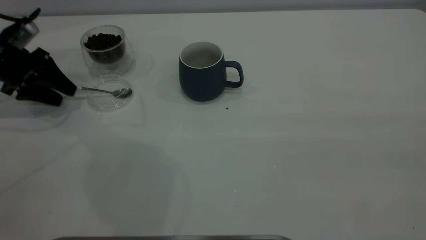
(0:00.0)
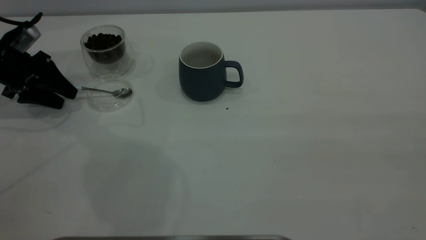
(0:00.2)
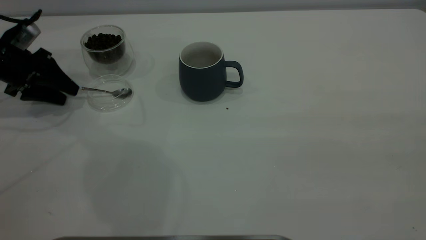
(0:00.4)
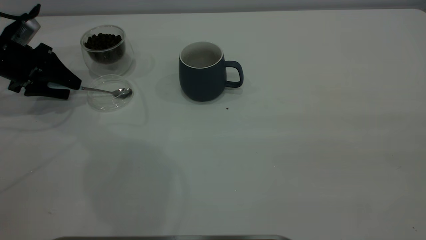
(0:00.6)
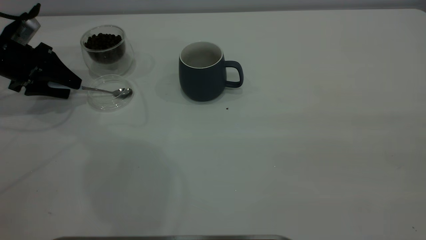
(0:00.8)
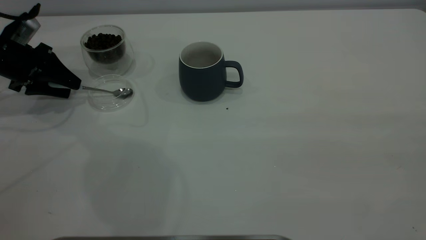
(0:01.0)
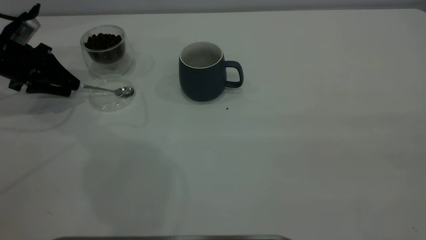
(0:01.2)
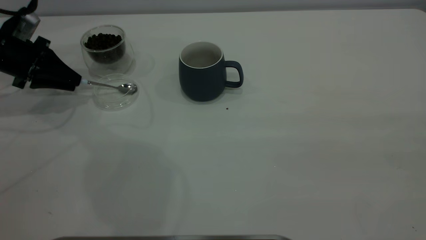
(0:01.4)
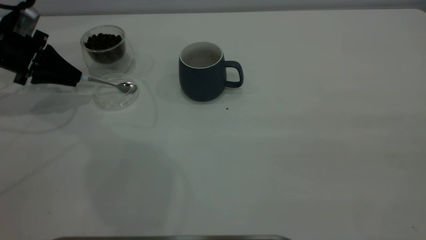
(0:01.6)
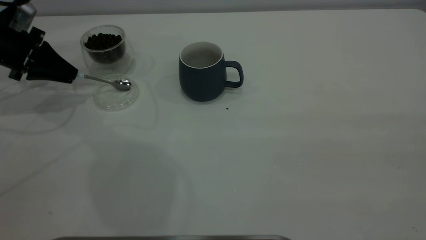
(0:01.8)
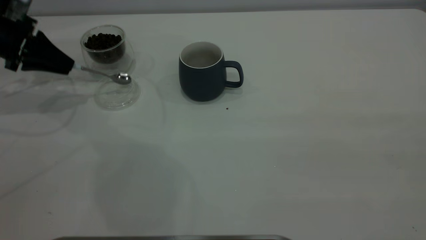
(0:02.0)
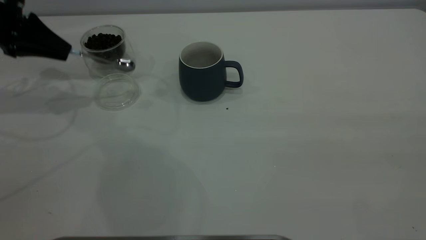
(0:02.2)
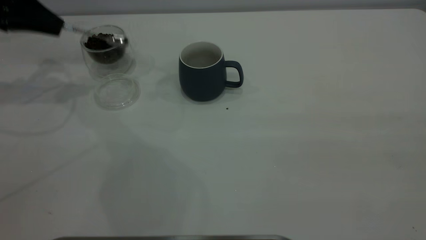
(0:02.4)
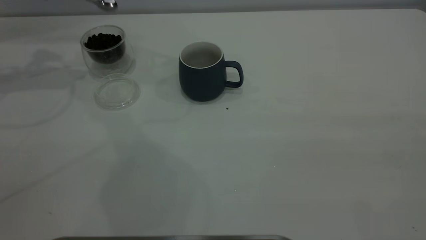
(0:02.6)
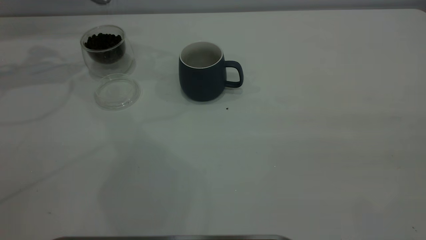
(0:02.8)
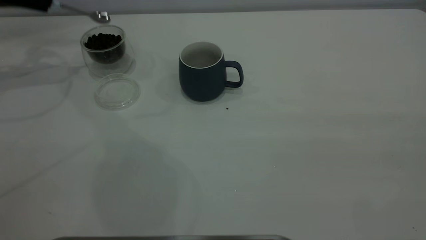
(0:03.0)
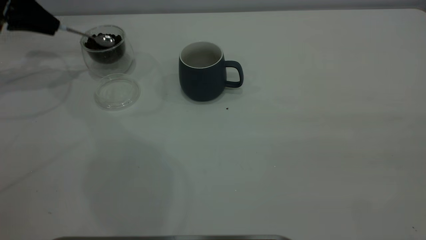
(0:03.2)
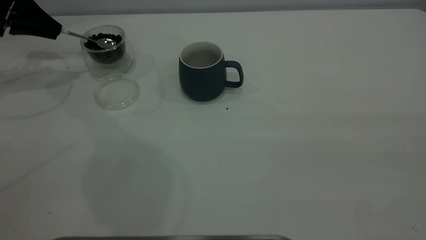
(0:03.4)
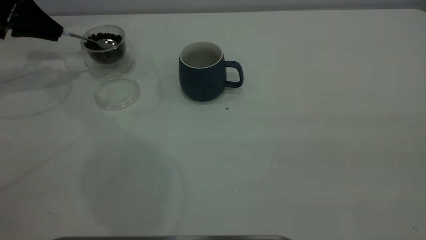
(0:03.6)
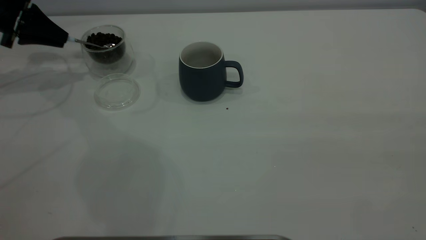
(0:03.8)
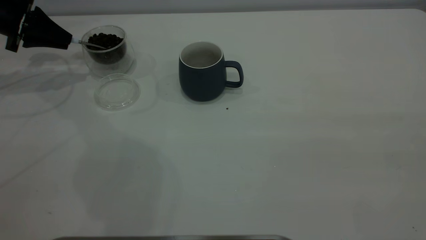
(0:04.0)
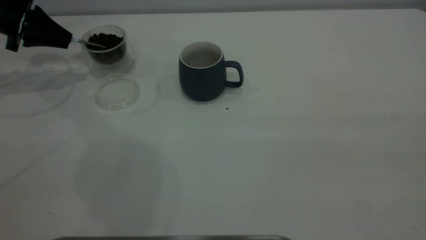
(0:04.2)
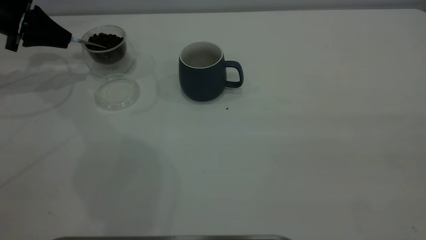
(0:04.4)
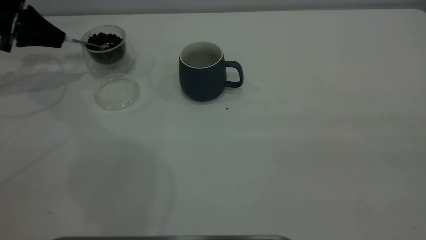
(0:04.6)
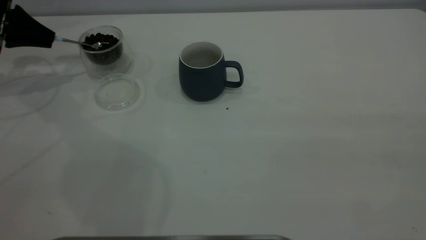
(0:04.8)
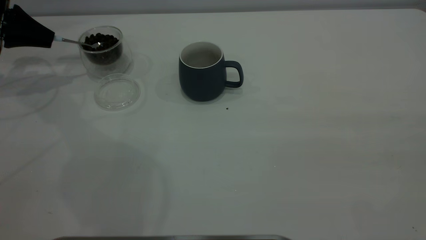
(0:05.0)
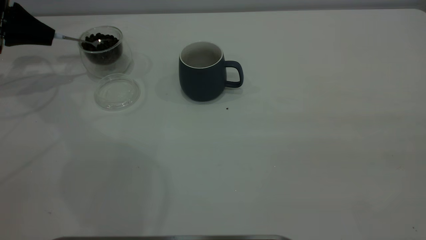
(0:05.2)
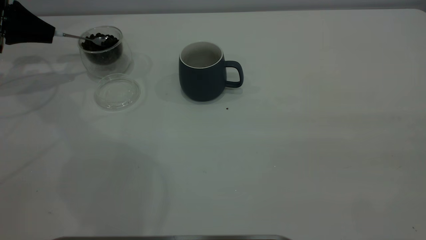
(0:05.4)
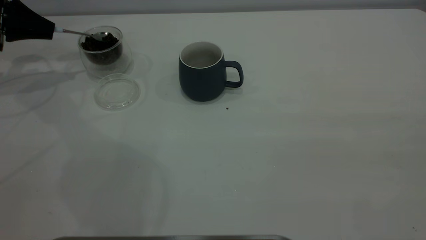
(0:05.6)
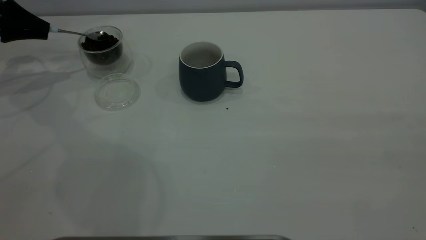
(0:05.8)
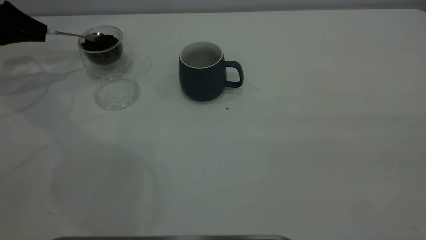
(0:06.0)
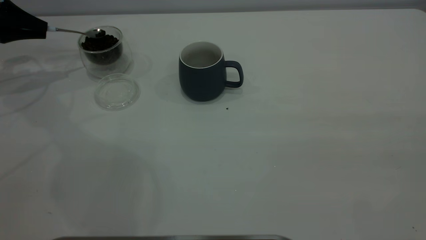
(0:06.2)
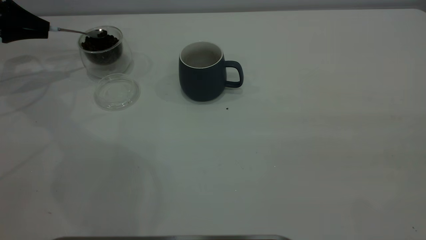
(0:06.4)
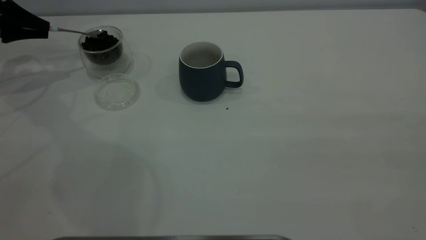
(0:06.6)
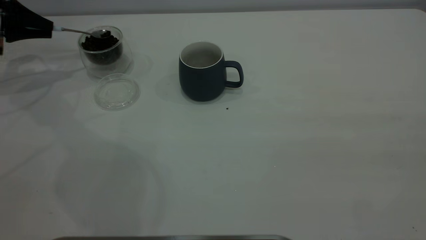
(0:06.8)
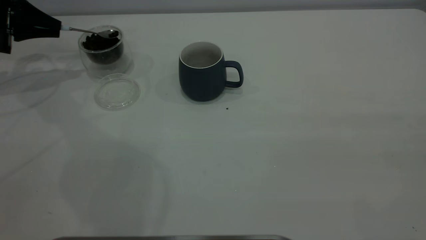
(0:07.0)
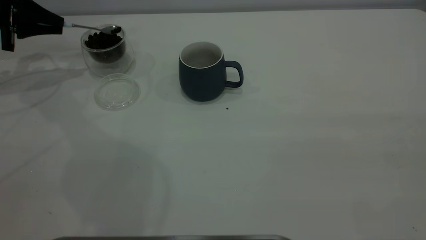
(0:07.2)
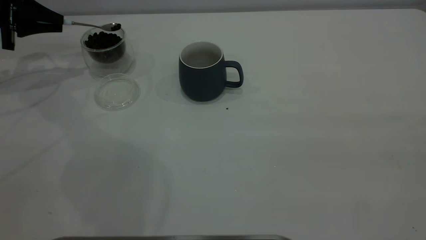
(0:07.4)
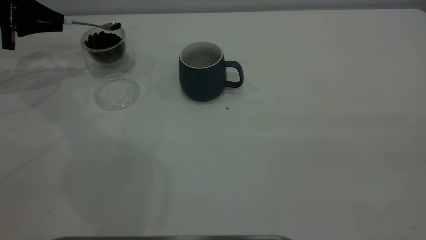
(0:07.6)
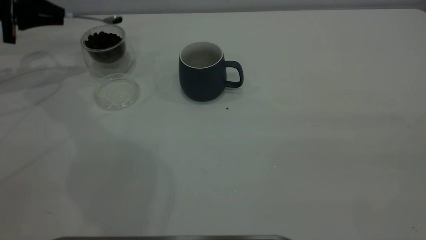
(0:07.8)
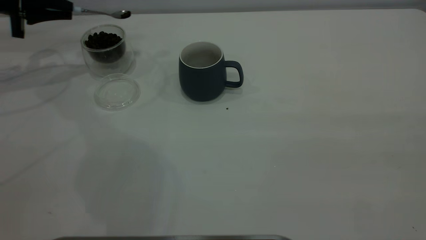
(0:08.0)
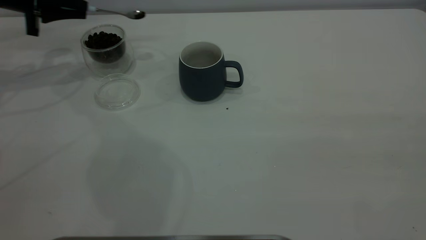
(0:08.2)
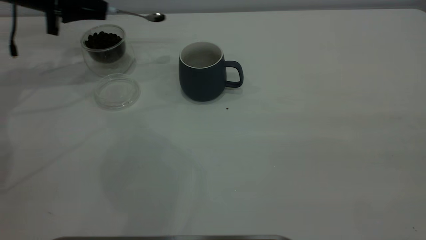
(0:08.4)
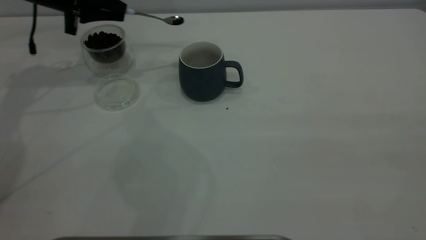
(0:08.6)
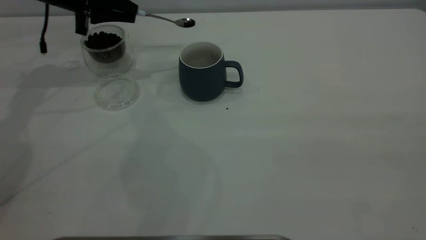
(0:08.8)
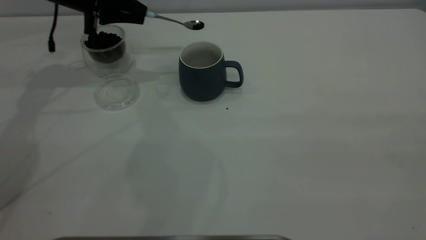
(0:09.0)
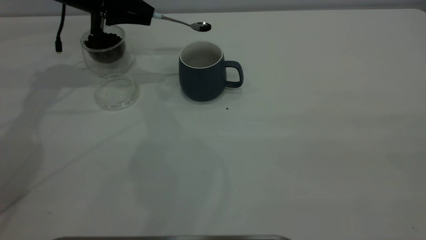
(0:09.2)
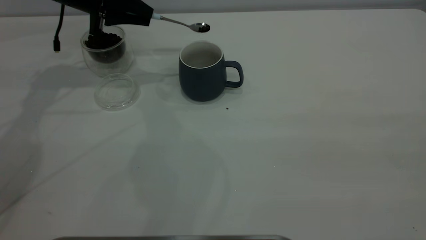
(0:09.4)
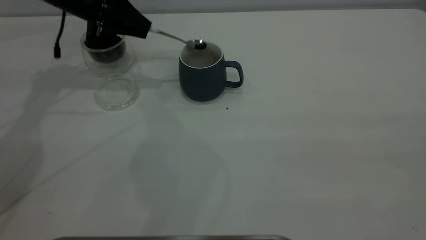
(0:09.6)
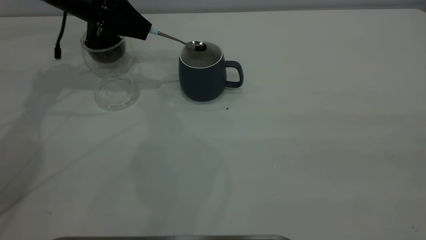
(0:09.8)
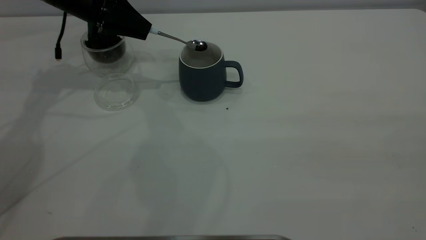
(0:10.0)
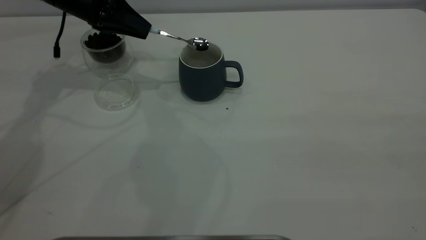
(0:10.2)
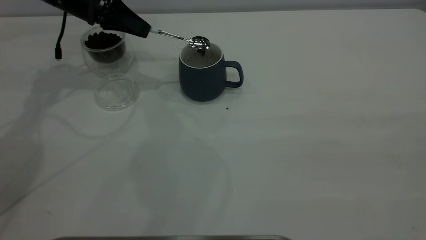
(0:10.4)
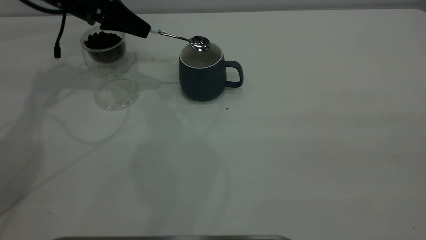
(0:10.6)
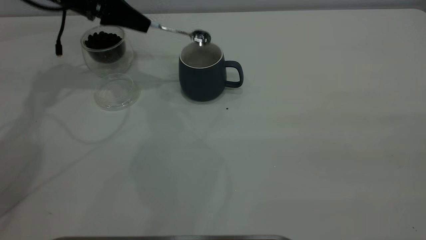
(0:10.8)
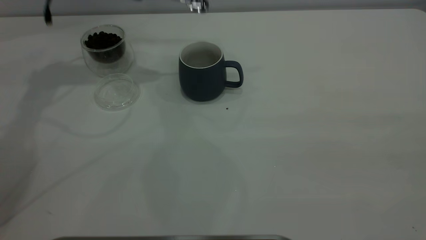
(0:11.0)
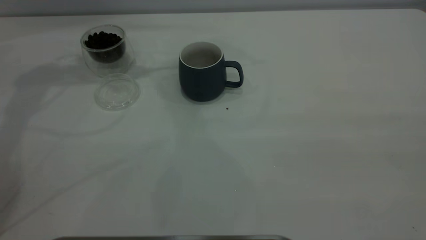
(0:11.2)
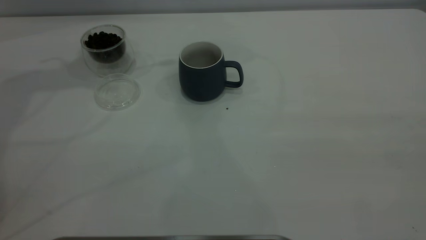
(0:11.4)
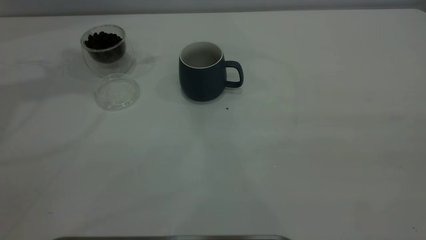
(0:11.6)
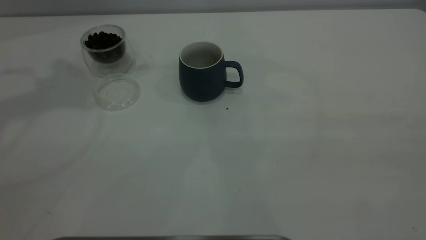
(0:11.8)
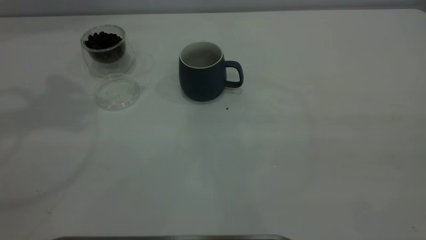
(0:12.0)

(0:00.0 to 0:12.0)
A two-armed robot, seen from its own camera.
Task of the whole recording: the right gripper place the grey cup in the center of the table, the left gripper take the blue spoon from the cup lid and scoop out the coffee beans from the coffee cup and put them into the grey cup, the left gripper put the spoon back into the cup lid.
Step, 0:00.0 - 0:02.0: Pick up the spoon.
Step, 0:02.2 - 0:10.6: Scoop a spoonful of beans into the cup.
0:00.0 - 0:01.6: The left gripper closes up.
0:01.6 - 0:03.0: The left gripper is displaced upward and forward by about 10 cm.
0:03.0 - 0:04.4: The left gripper goes approximately 5 cm downward.
0:04.4 - 0:07.6: The grippers move only a little.
0:07.6 - 0:09.0: The left gripper is displaced to the right by about 15 cm.
0:10.4 - 0:12.0: The left gripper heads upward and backward, covering about 30 cm.

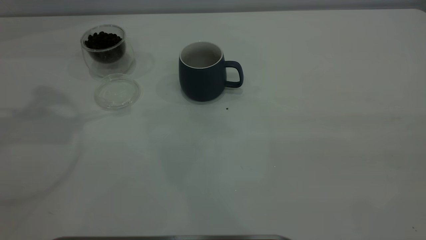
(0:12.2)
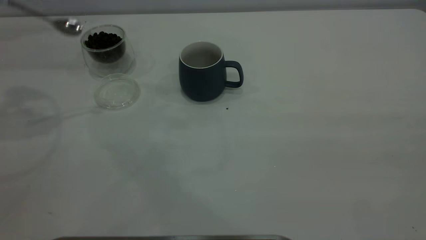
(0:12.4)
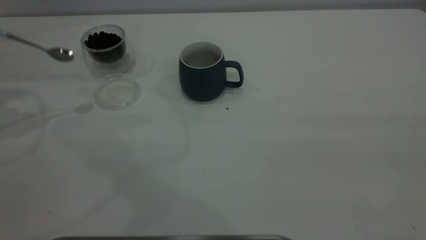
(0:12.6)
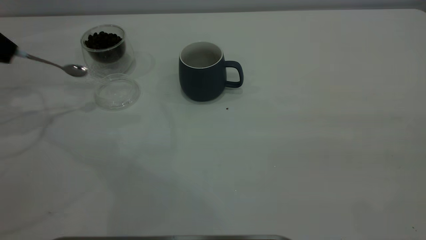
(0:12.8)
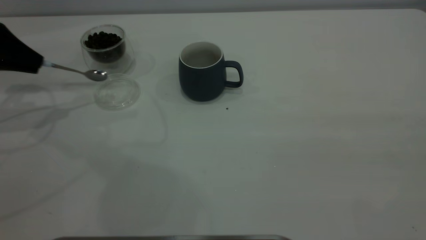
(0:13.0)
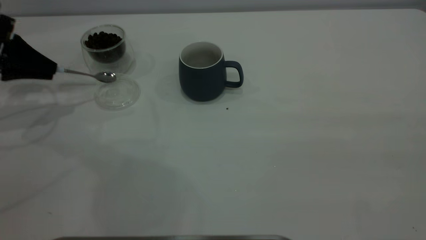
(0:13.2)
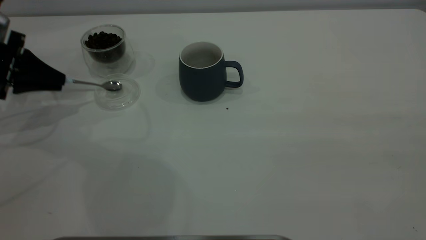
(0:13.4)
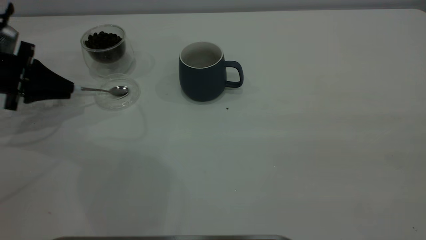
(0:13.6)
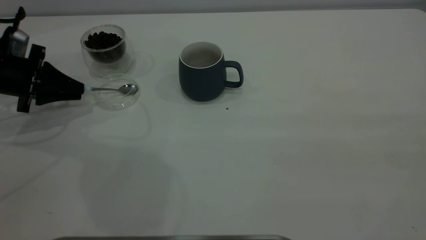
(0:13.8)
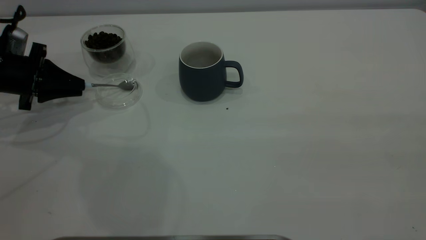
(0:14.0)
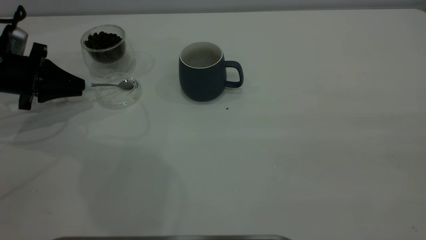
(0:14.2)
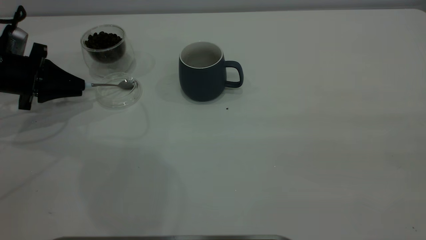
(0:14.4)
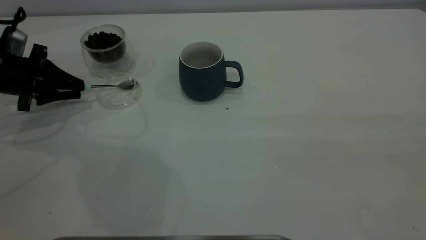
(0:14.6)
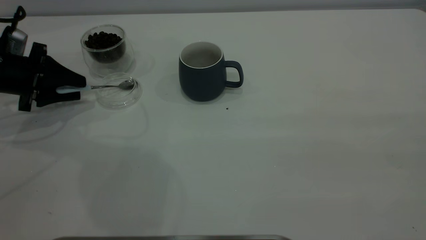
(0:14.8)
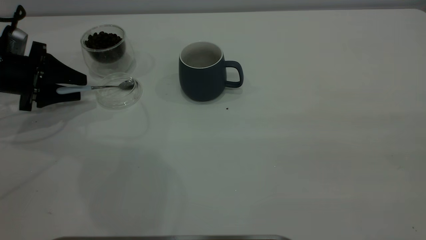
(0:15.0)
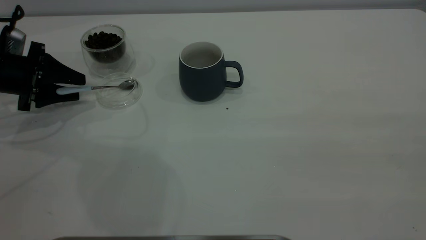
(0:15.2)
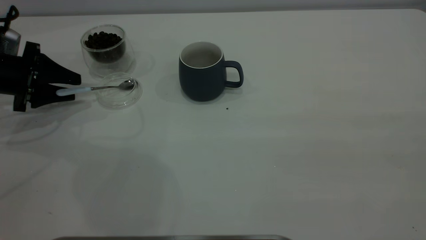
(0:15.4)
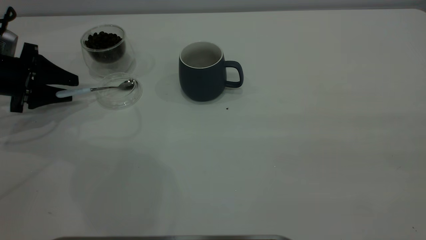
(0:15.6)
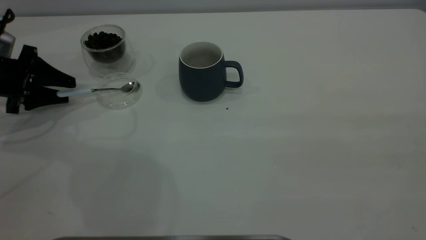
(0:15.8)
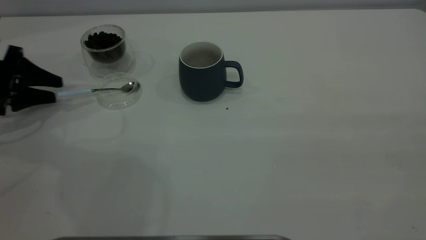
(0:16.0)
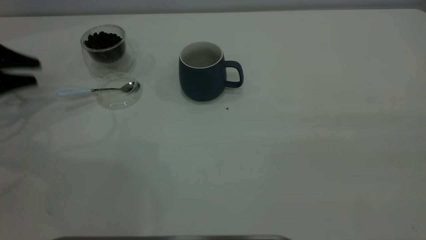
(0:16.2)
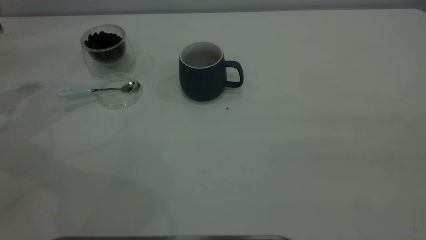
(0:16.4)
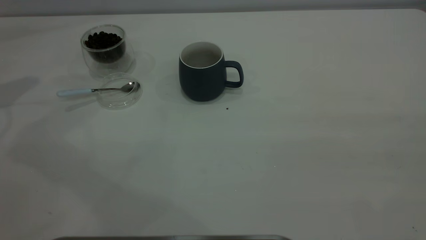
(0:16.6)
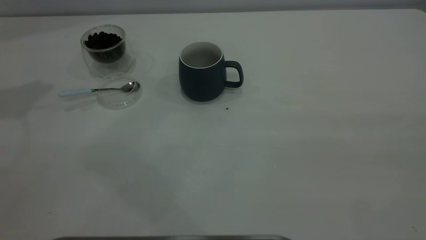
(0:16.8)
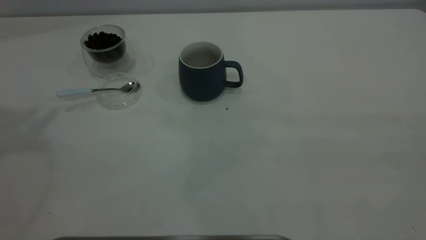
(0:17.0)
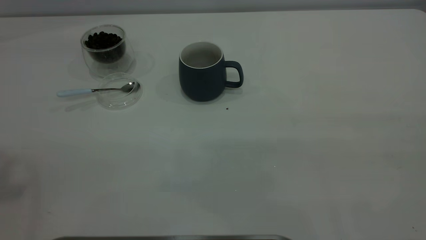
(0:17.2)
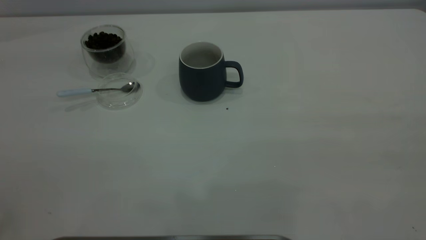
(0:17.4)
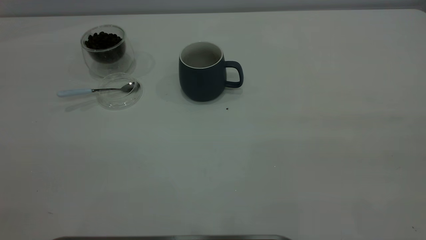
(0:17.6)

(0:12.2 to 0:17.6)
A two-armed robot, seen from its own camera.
Task of the whole recording: the right gripper place the grey cup in the center of the table, the left gripper take the blue spoon from the cup lid and scoop out the coffee beans from the coffee cup and put them into the grey cup, the left gripper put the spoon back into the cup lid.
Step, 0:12.2 - 0:16.0: Place the spoon back in its original place.
0:12.2 - 0:13.6: The left gripper shifts about 25 cm downward.
0:13.6 - 0:15.0: The left gripper opens.
0:15.0 - 0:16.2: The left gripper moves to the left, approximately 5 cm.
0:16.2 - 0:17.6: The left gripper is displaced upward and backward by roughly 50 cm.
